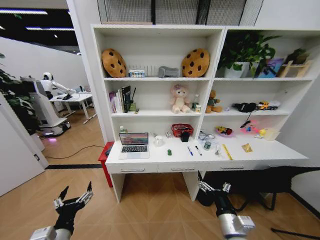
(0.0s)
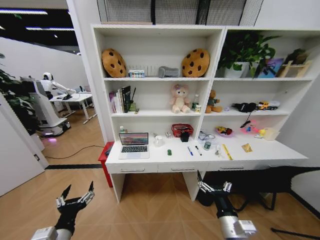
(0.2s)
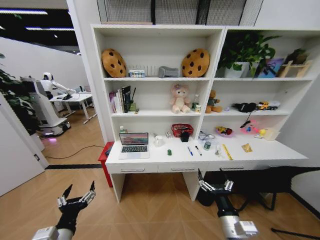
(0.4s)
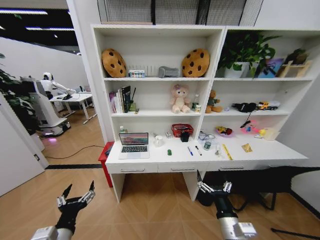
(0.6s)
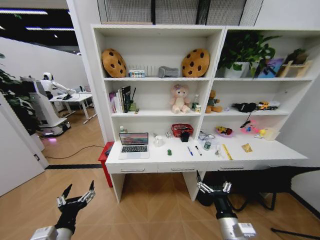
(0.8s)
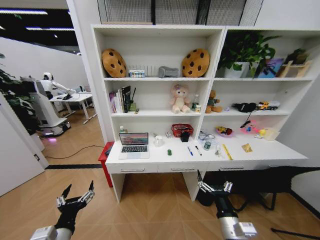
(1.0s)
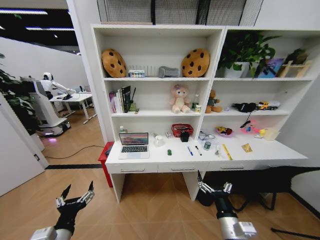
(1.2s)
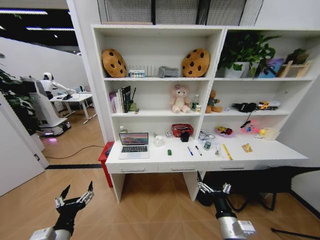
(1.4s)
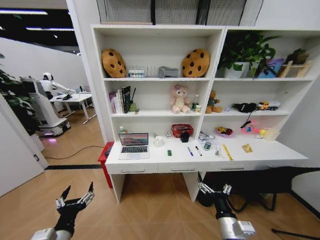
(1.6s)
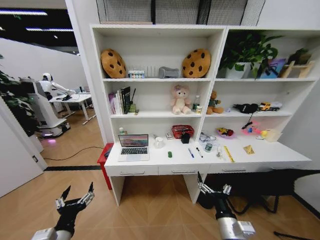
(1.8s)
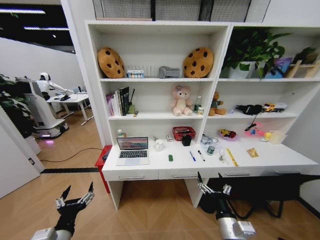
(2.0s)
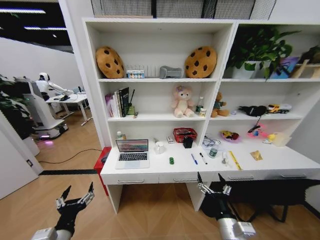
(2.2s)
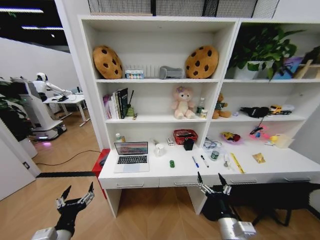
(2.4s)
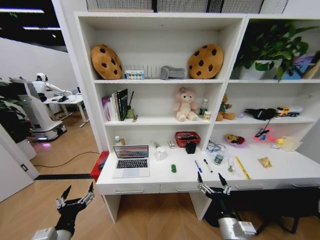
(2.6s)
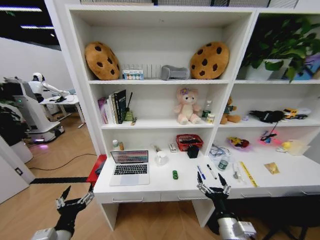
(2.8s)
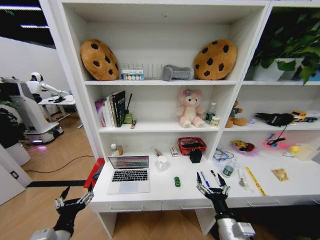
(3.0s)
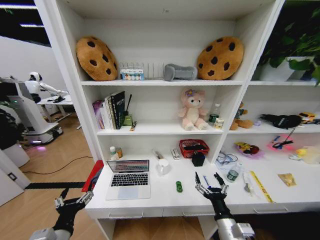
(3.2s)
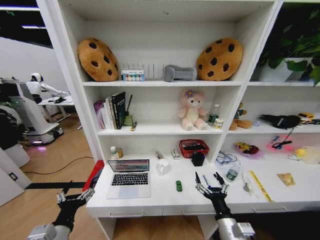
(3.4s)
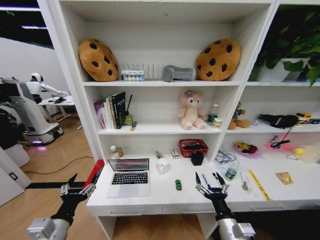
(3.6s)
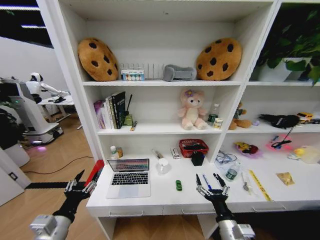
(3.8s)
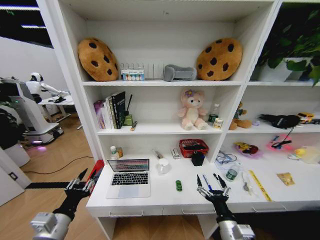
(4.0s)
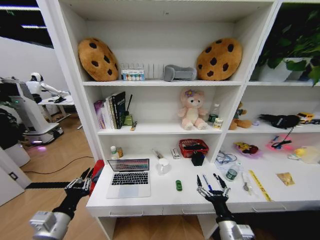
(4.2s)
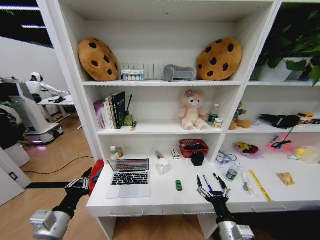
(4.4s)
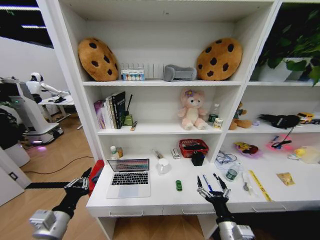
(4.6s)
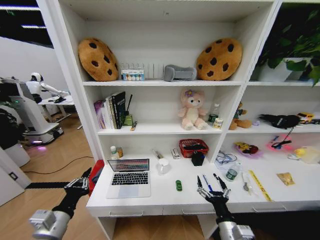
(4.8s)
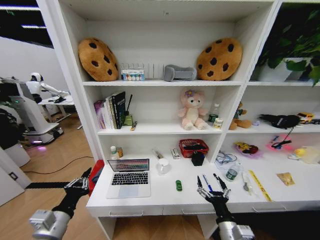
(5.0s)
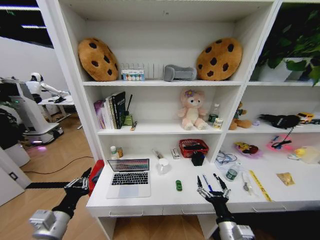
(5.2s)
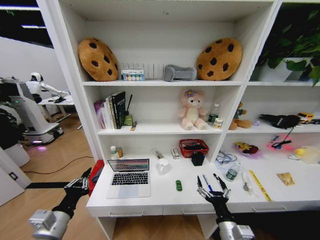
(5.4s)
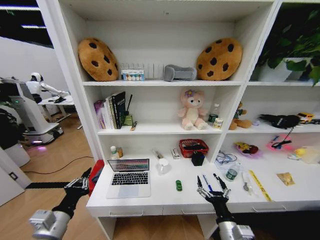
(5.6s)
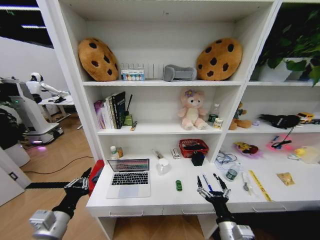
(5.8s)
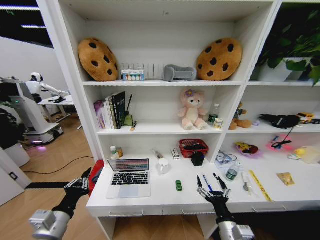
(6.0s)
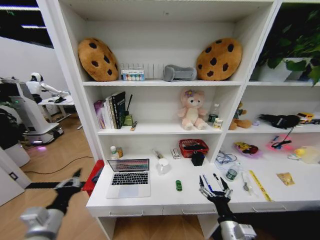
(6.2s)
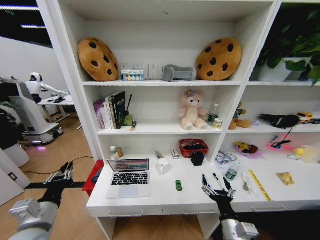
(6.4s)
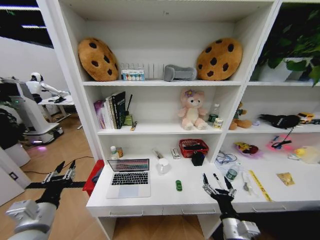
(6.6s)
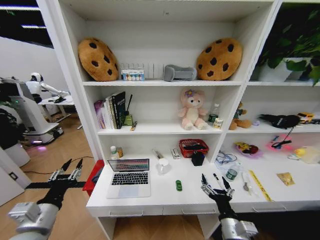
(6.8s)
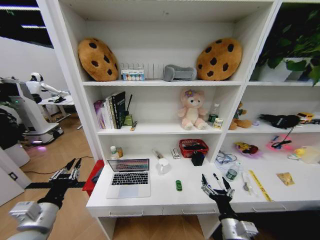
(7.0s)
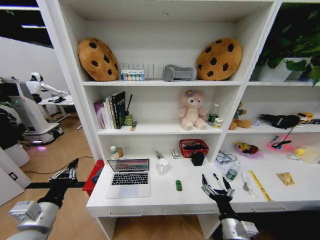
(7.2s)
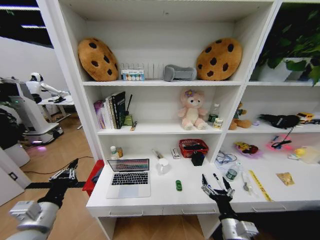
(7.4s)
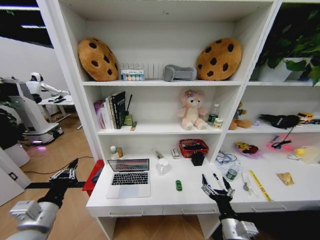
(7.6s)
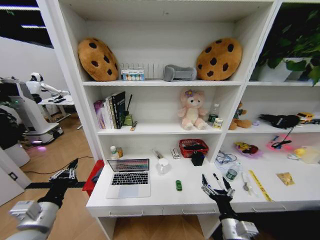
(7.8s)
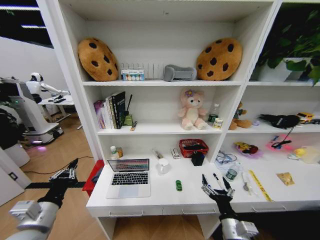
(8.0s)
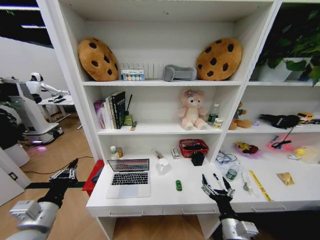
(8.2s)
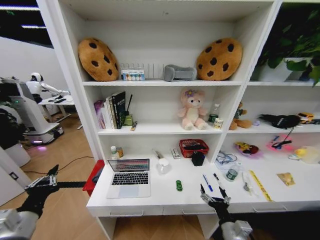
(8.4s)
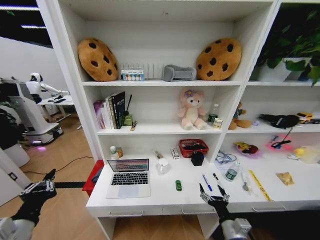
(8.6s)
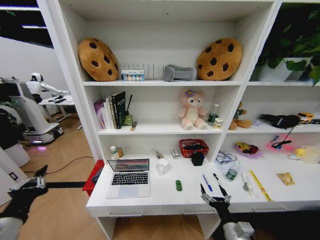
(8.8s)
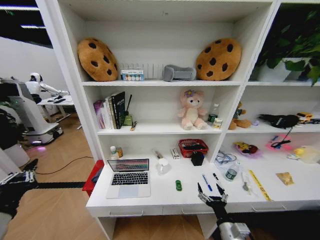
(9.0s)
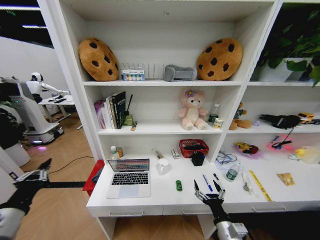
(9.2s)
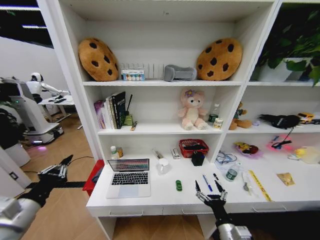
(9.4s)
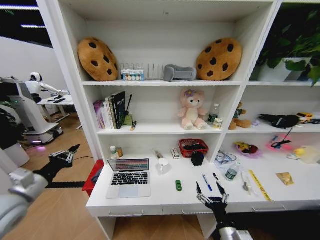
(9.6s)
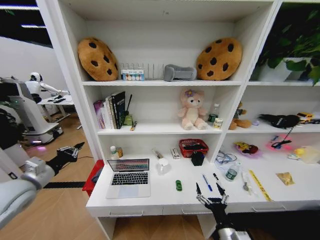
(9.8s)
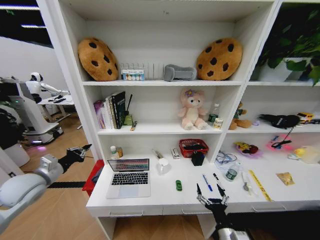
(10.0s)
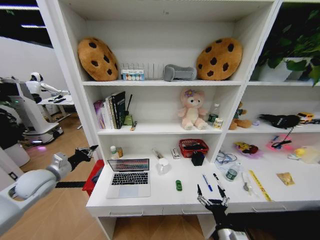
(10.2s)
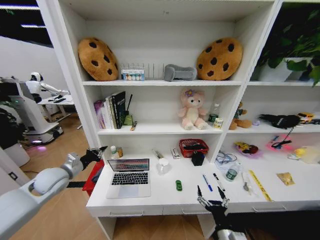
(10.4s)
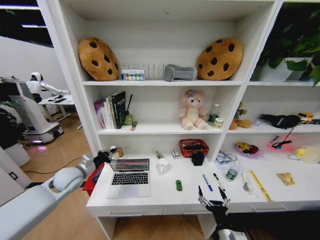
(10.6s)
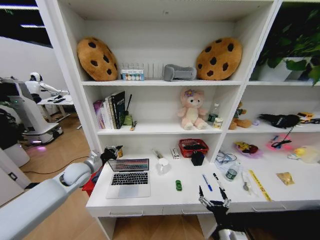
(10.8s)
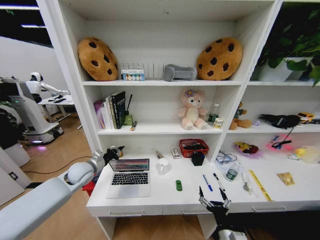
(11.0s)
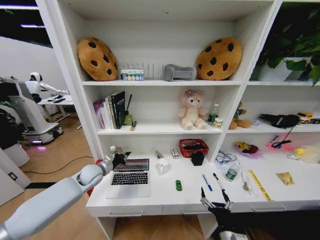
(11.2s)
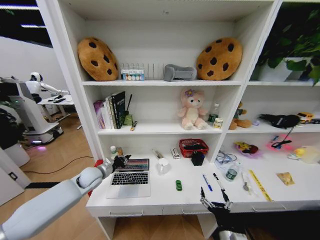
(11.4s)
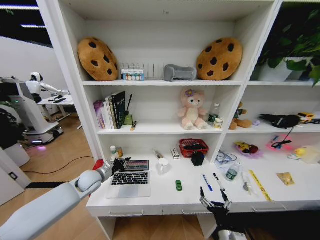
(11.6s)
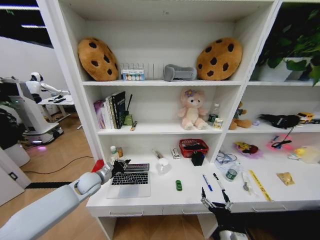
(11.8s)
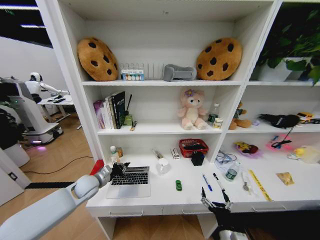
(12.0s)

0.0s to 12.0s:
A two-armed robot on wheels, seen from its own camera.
Task of the whole recording: Organize the objects on the table.
3.0s to 4.4s: The left gripper changes place by approximately 5 cm, and closes.
4.4s to 6.0s: Both grippers stay about where they are.
6.0s to 7.6s: The left gripper opens and closes again.
7.6s to 9.0s: The left gripper heads to the left, covering some 5 cm.
9.0s to 10.4s: The left gripper goes some 25 cm forward.
10.4s to 12.0s: The left gripper heads downward and to the right, covering approximately 15 cm.

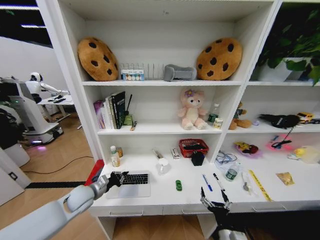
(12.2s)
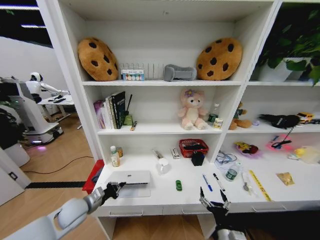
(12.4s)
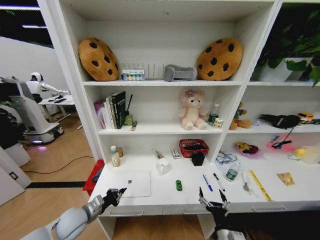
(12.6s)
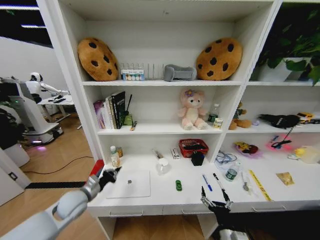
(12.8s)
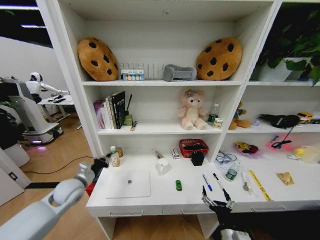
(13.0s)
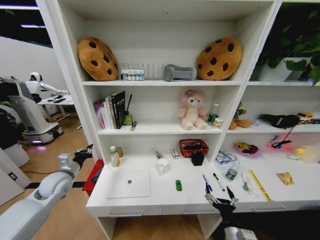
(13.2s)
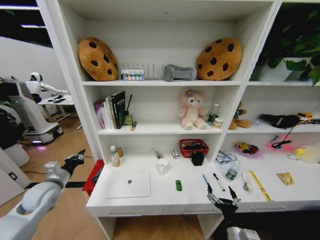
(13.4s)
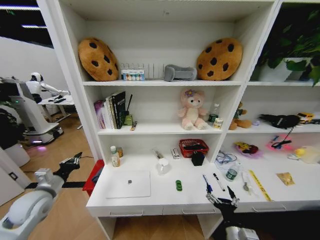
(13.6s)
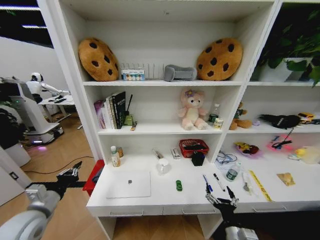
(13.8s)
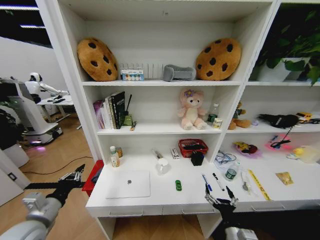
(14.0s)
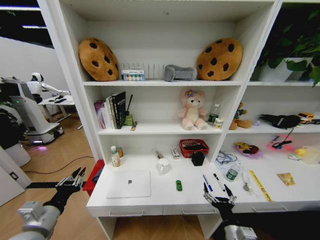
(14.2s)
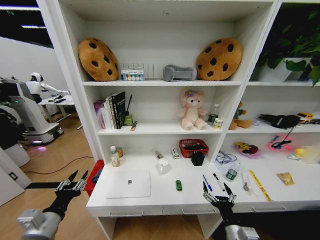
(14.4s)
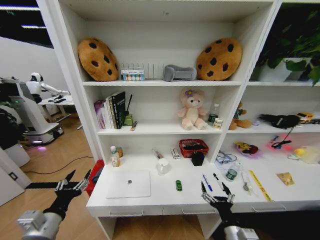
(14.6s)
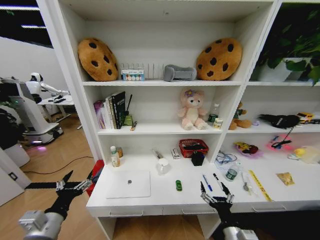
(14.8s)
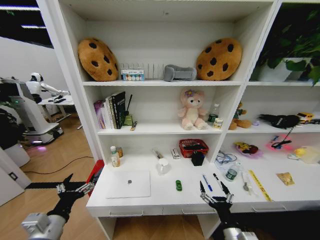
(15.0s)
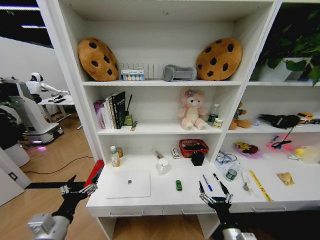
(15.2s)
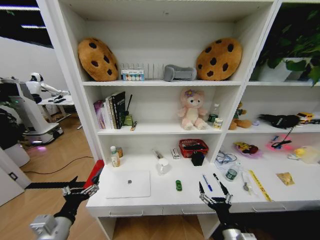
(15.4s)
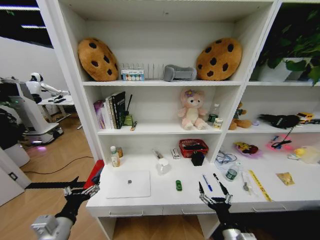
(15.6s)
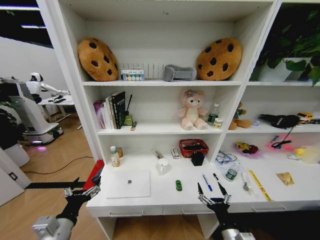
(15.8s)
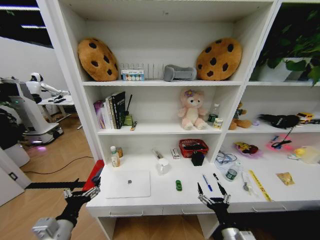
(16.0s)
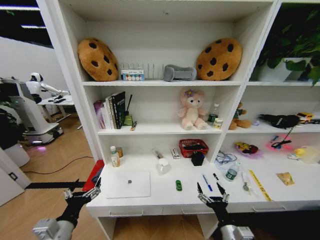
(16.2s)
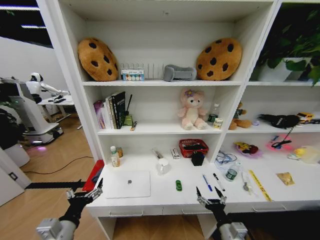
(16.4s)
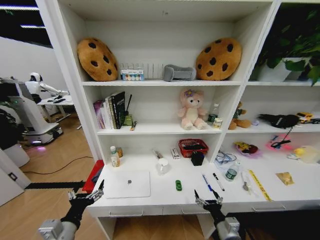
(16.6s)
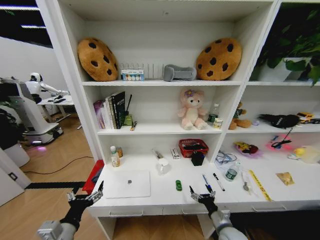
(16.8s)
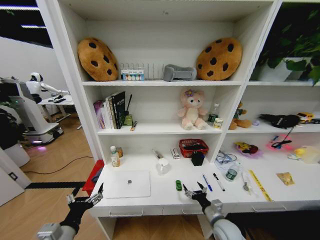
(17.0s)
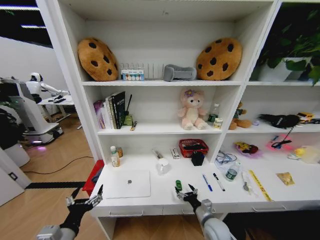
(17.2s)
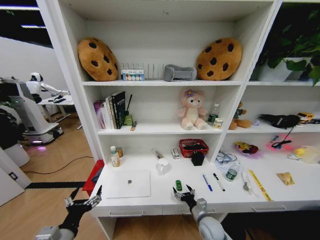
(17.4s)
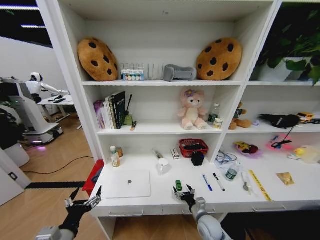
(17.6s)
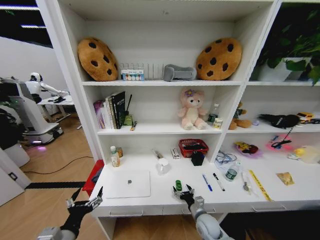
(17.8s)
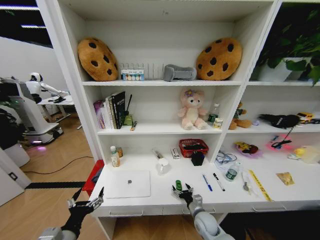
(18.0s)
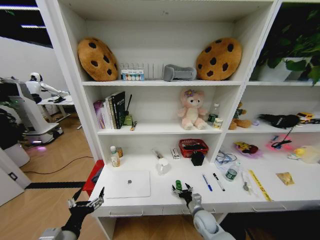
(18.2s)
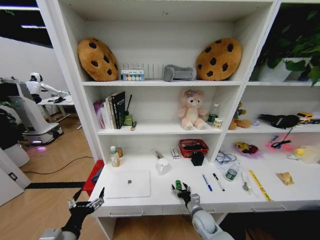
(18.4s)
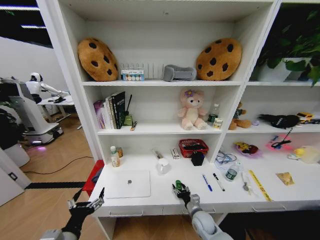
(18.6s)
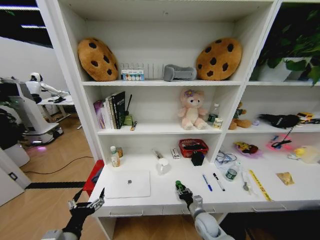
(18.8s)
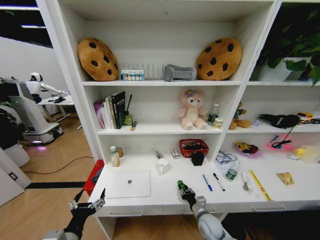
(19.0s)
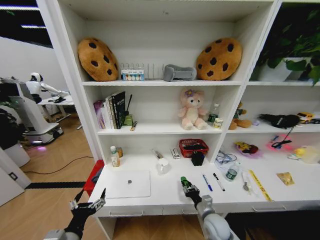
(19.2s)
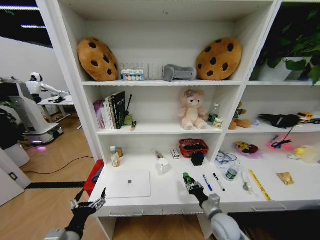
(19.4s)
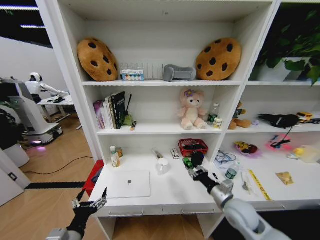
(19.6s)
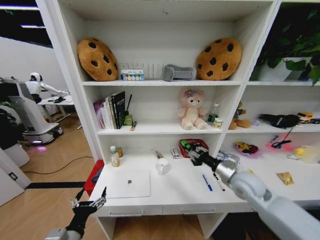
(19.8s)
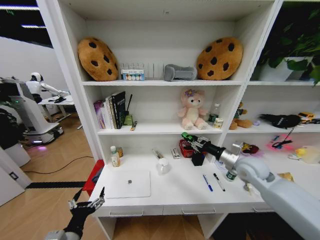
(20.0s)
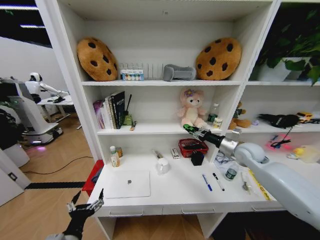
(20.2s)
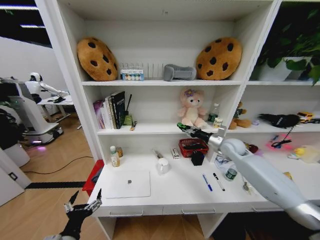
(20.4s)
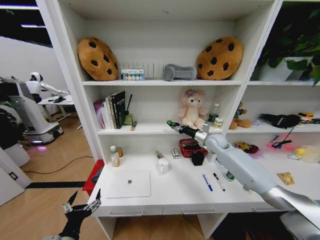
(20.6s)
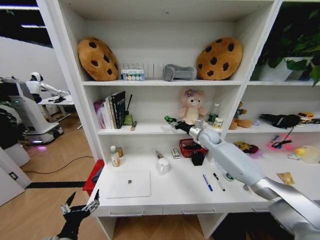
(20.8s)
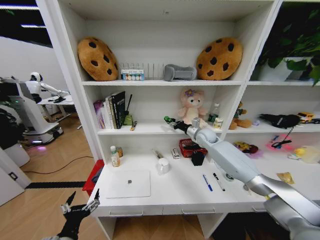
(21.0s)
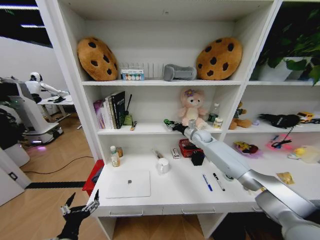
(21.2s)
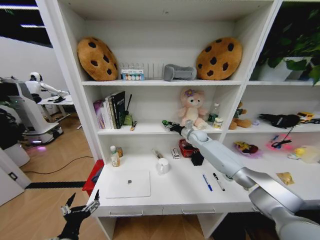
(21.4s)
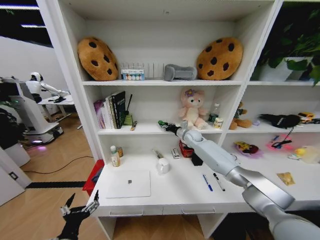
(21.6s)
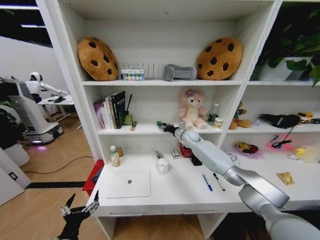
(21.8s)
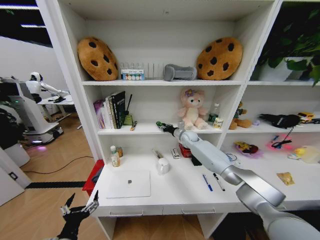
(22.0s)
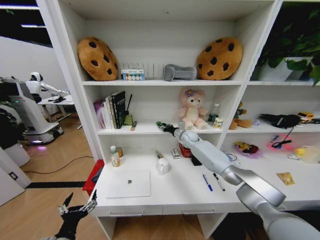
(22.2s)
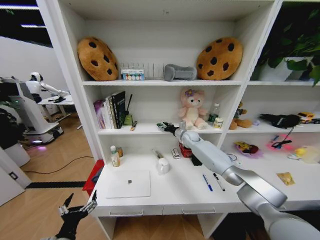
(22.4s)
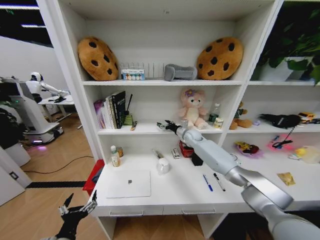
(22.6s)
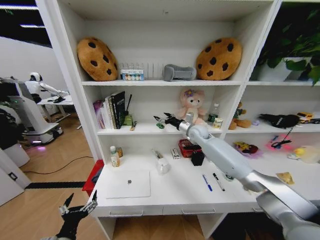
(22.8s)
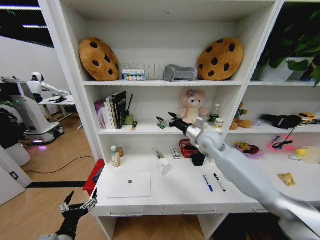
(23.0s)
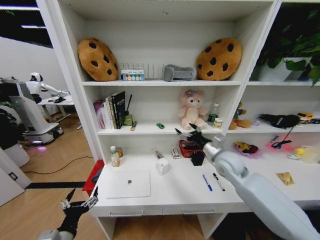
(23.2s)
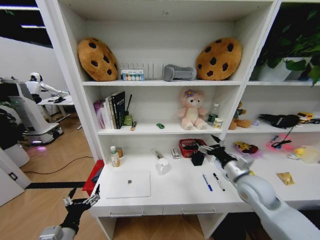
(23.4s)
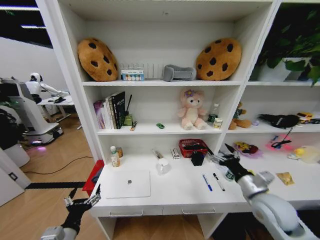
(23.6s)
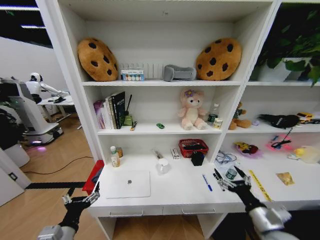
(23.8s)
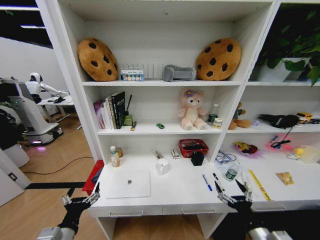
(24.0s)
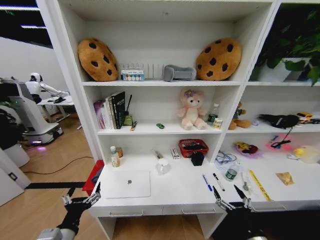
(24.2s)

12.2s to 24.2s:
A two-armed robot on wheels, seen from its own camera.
Task of the whole recording: Organize the objects on the table.
12.2s to 13.8s: The left gripper goes forward and backward, approximately 15 cm each way, reversing 2 times.
13.8s to 15.2s: The left gripper moves to the right and backward, approximately 10 cm, and opens up.
15.2s to 16.6s: The right gripper shifts by roughly 5 cm.
16.6s to 18.2s: The right gripper goes roughly 15 cm forward, downward and to the left.
18.2s to 19.8s: The right gripper travels upward by some 25 cm, and closes up.
19.8s to 21.2s: The right gripper is displaced forward by approximately 25 cm.
21.2s to 22.6s: The right gripper moves roughly 5 cm, and opens.
22.6s to 24.2s: The right gripper goes roughly 50 cm backward.
